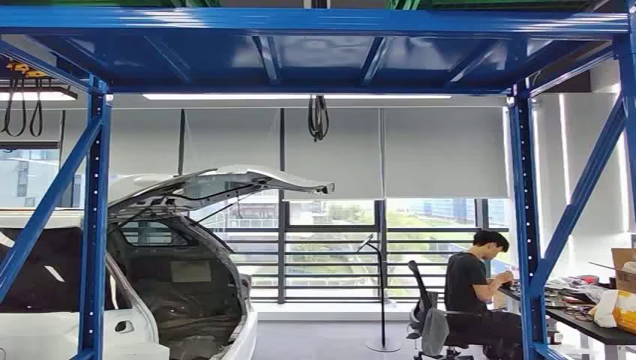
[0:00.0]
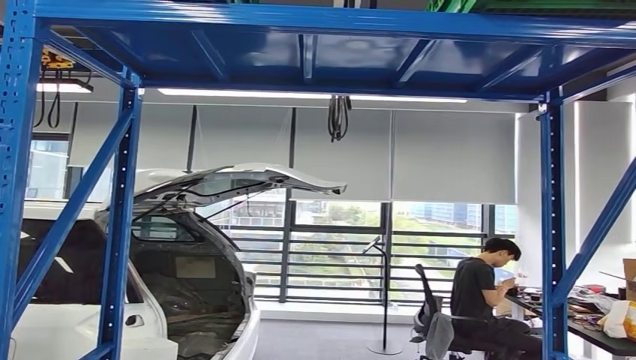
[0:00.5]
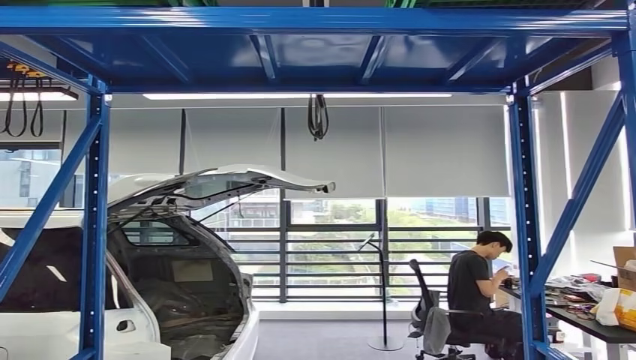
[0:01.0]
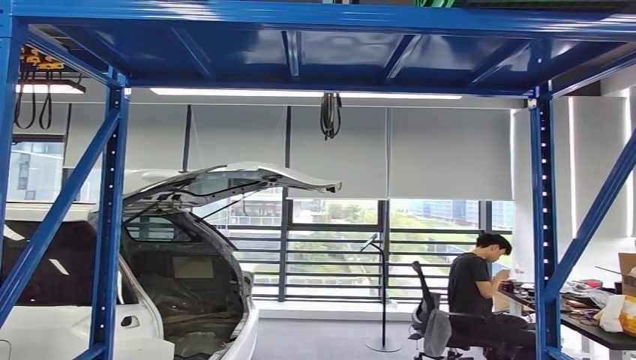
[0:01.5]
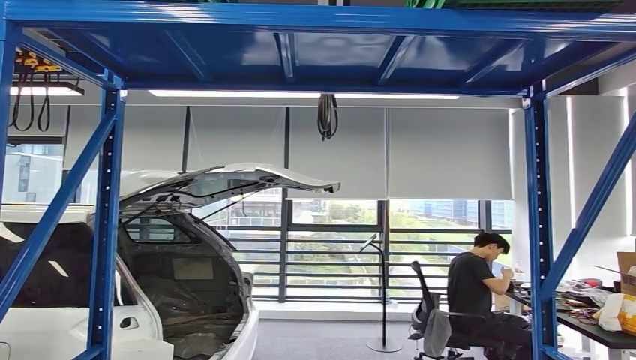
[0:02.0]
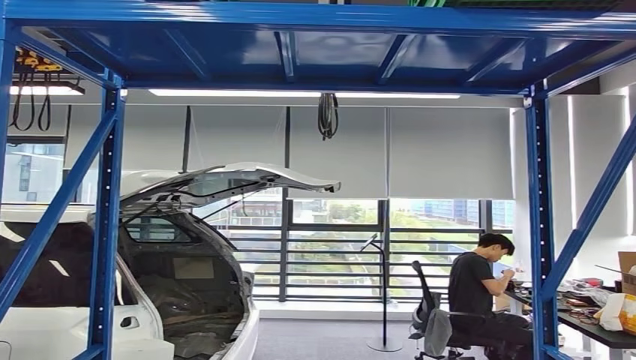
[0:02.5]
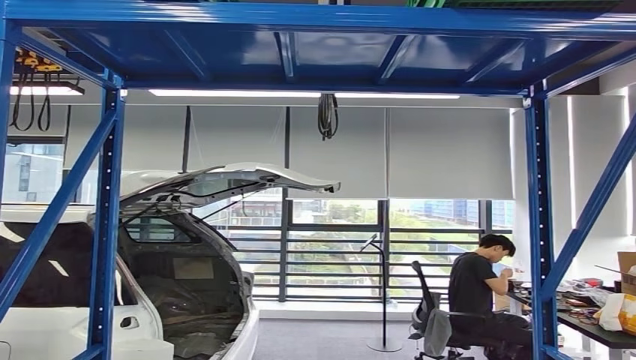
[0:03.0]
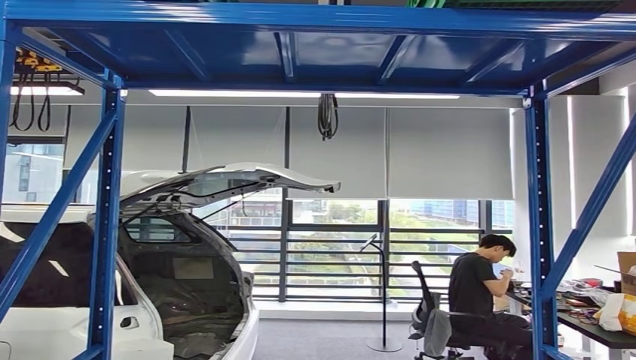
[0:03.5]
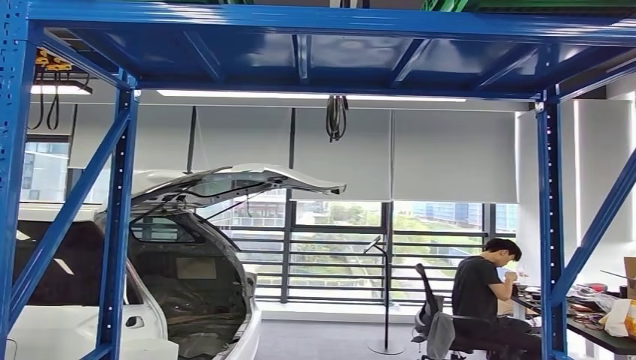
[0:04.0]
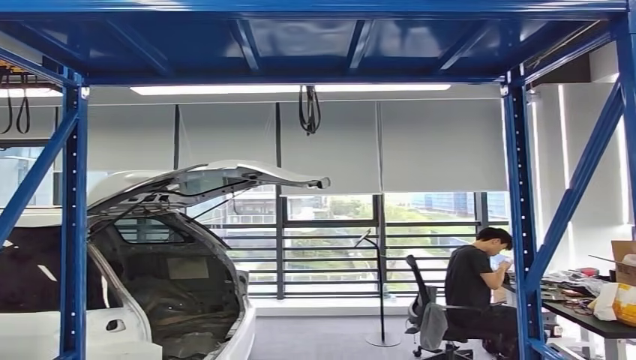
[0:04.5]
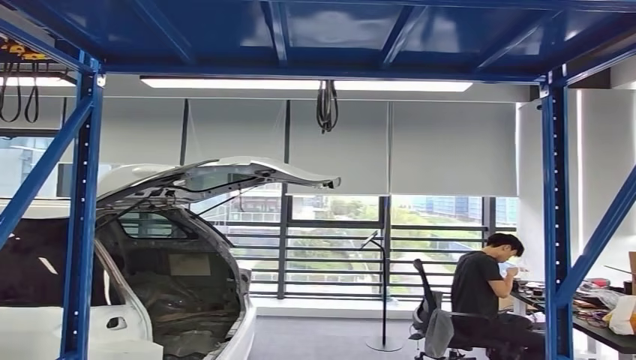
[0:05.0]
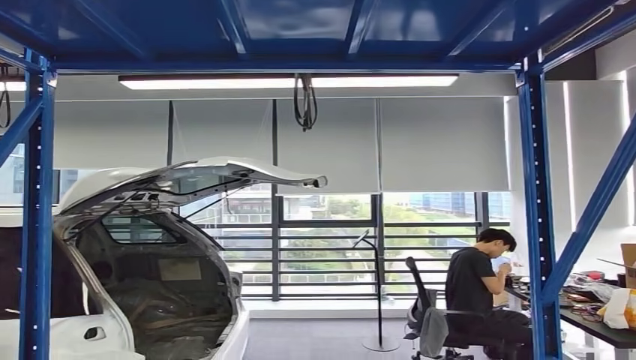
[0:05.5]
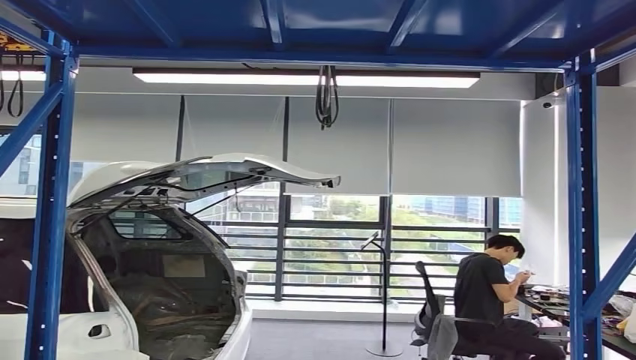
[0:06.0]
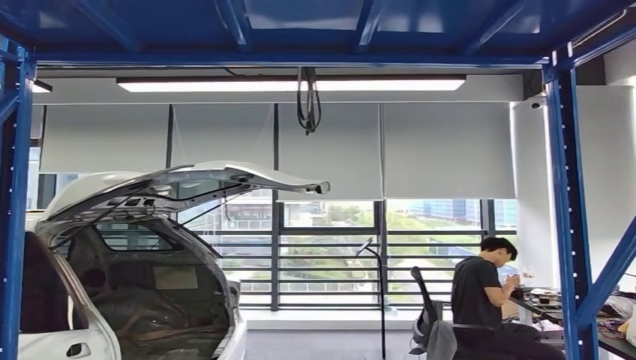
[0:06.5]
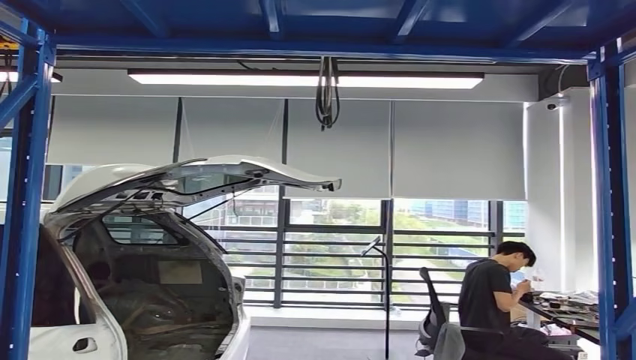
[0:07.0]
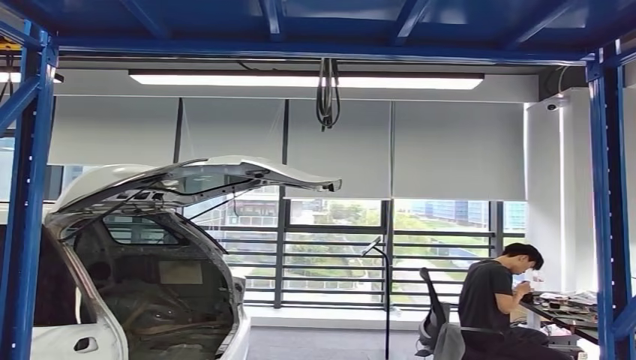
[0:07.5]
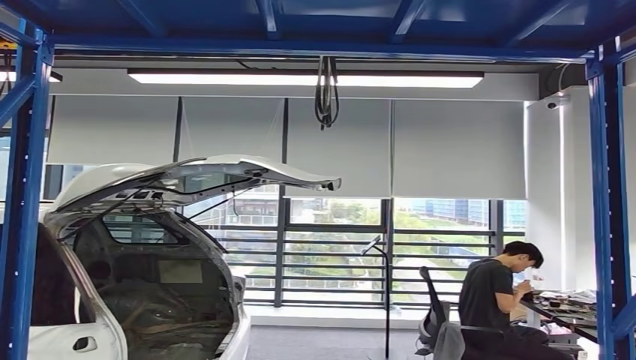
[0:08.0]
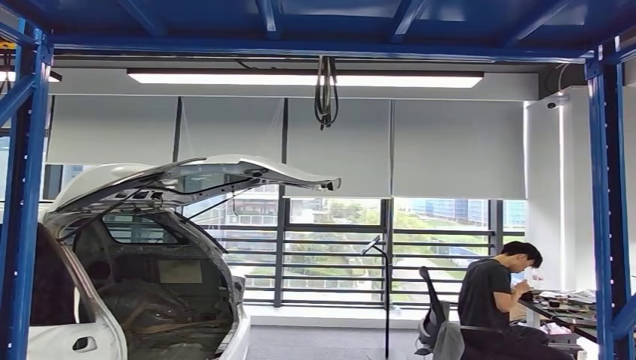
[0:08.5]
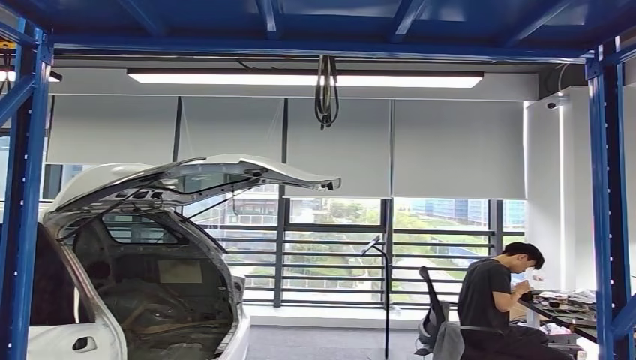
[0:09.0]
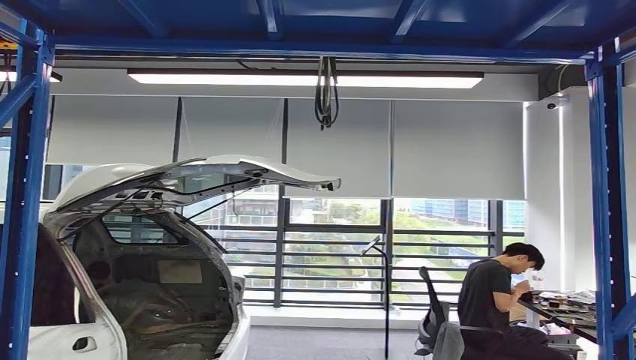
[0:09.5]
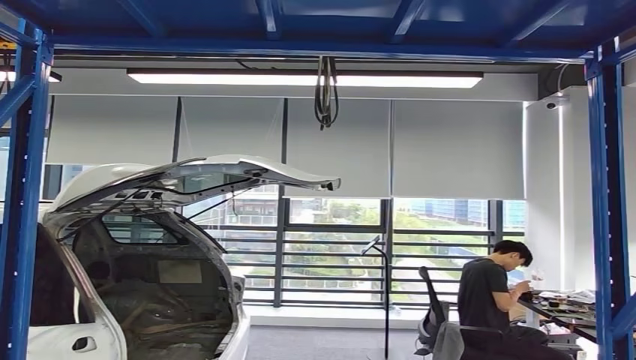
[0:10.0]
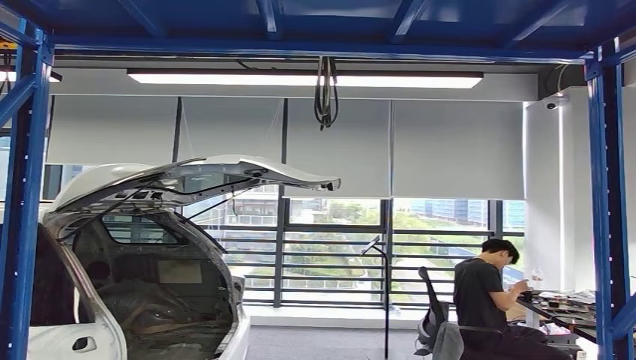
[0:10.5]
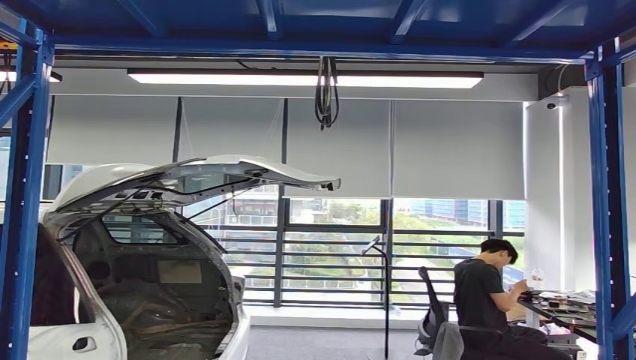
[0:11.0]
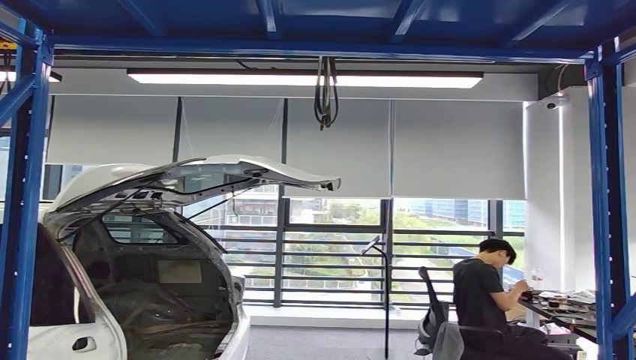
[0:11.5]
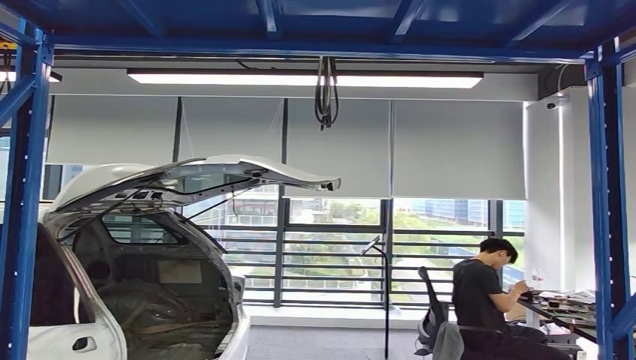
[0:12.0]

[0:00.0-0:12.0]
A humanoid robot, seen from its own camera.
0:08.0 to 0:10.0: The right hand shifts roughly 20 cm downward, to the left and backward.
0:10.0 to 0:12.0: The right hand heads to the right, covering approximately 10 cm.

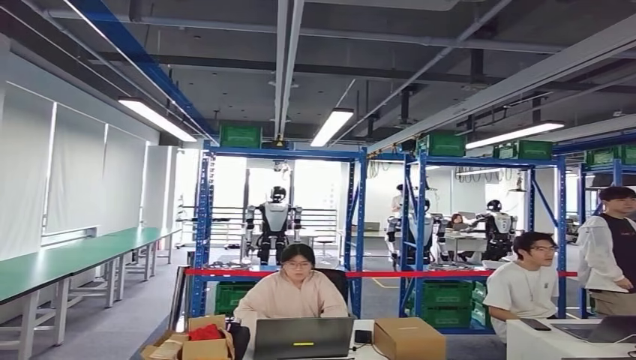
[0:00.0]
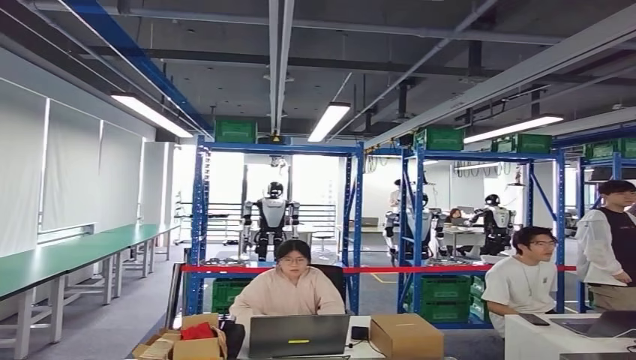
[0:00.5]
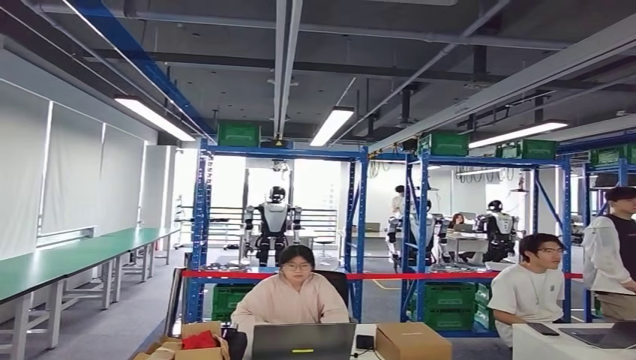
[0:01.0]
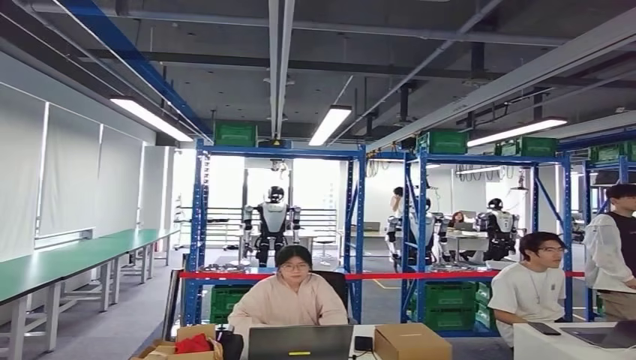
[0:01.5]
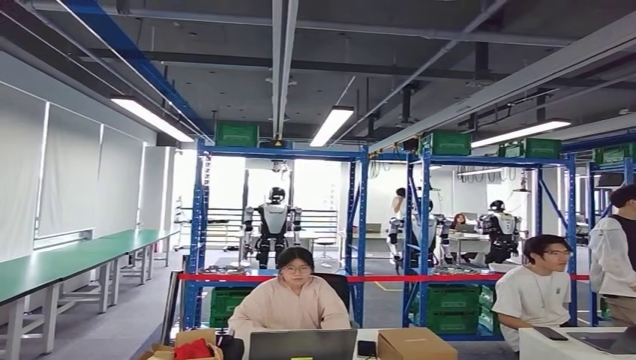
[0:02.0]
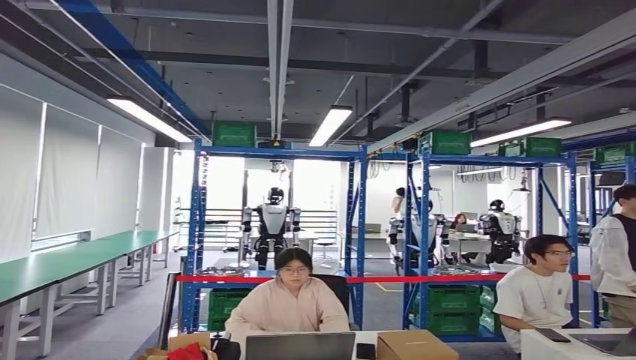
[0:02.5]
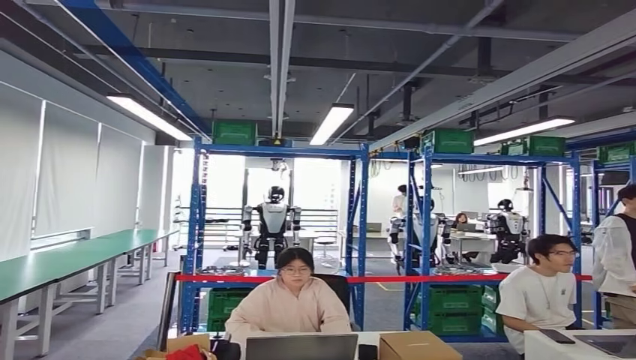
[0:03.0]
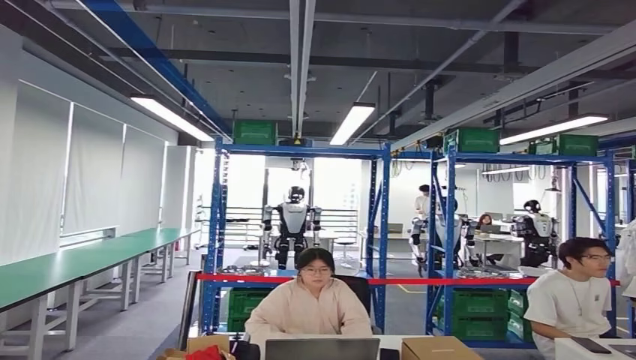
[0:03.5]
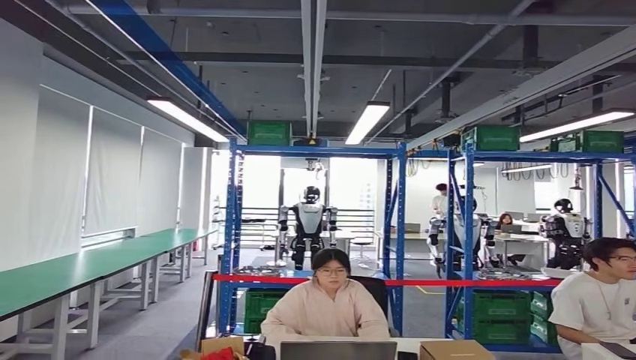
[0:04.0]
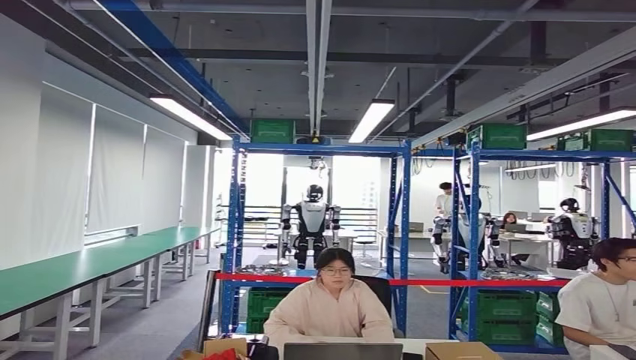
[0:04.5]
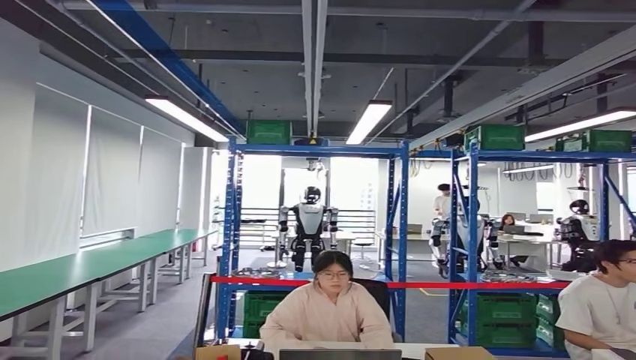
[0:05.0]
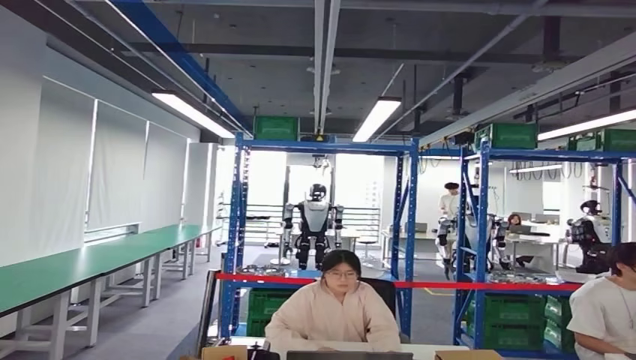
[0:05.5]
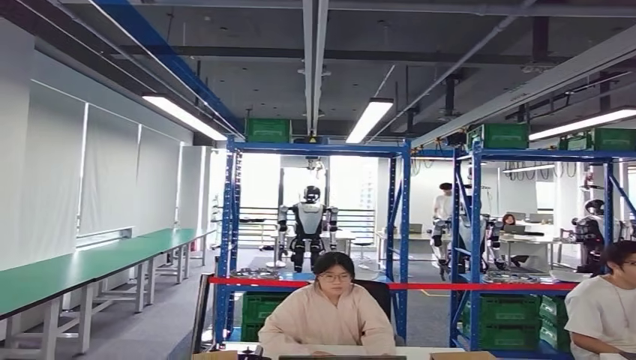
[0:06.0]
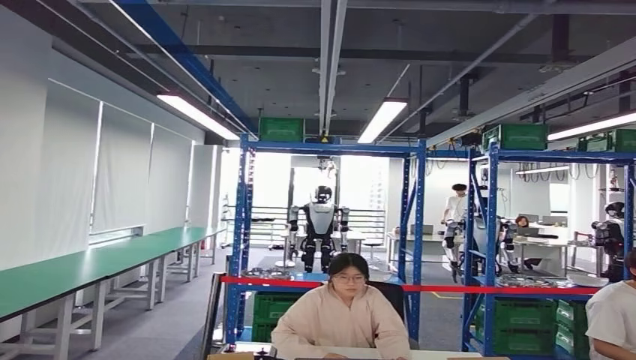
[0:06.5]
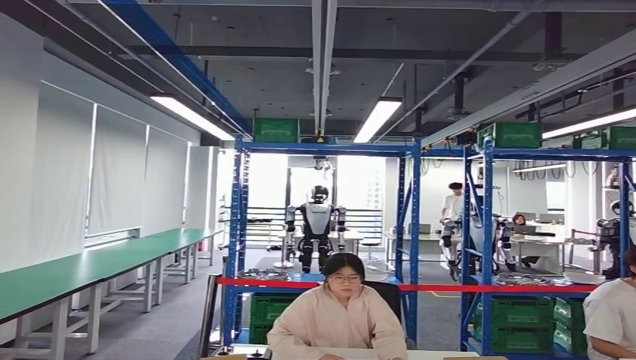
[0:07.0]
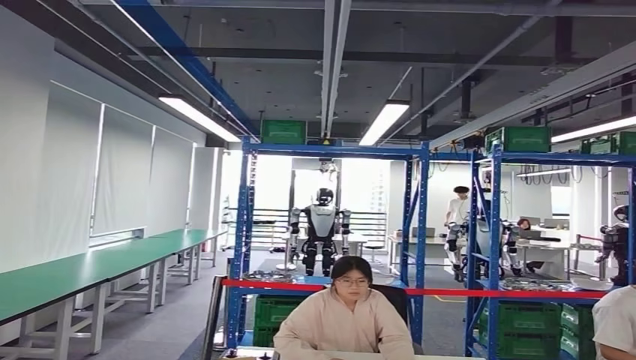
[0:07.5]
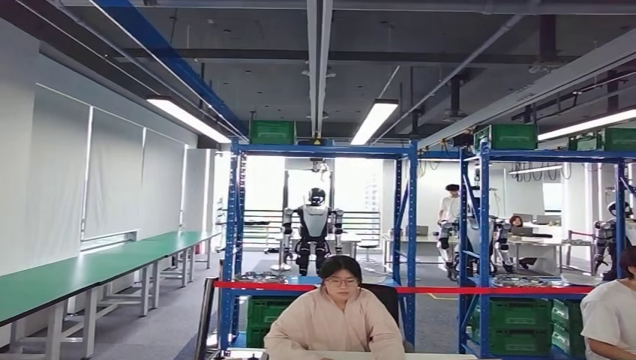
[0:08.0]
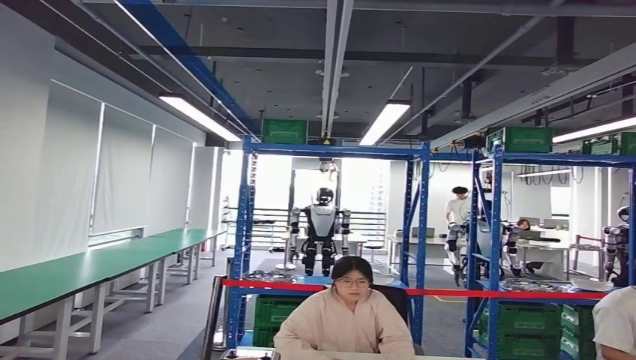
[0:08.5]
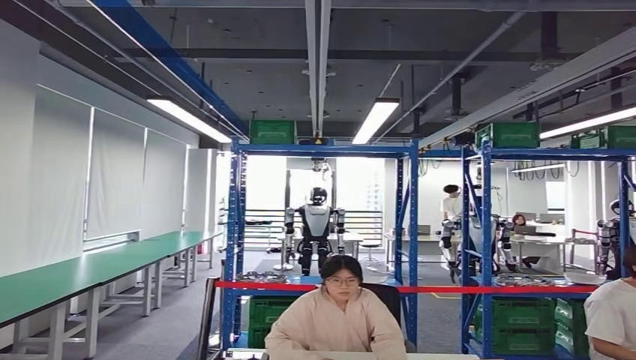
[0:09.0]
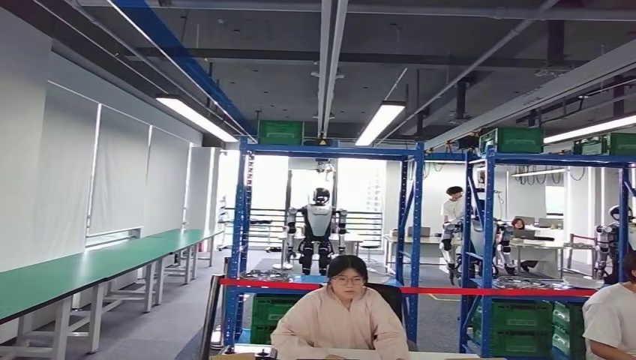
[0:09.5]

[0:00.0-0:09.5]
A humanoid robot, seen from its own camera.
Step, 0:00.0 to 0:06.5: Move the small component to the workbench.
